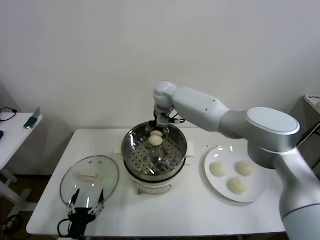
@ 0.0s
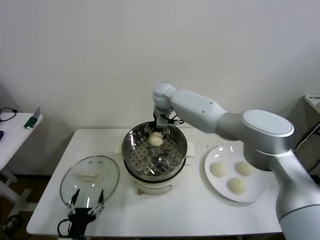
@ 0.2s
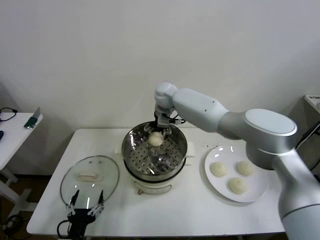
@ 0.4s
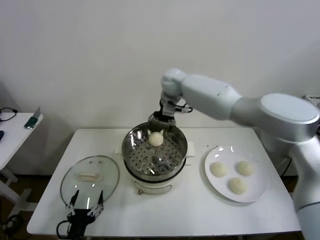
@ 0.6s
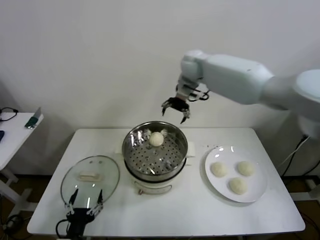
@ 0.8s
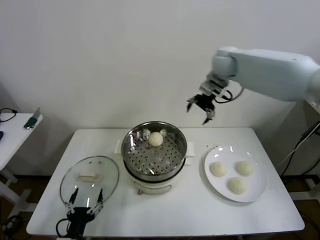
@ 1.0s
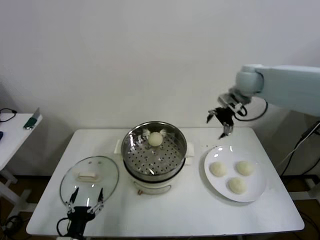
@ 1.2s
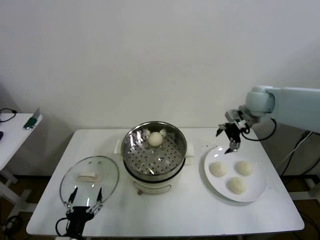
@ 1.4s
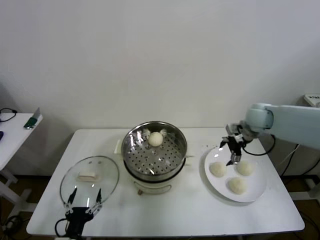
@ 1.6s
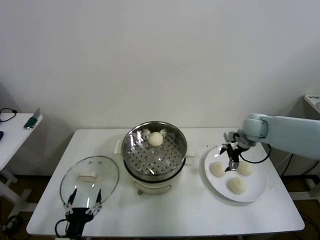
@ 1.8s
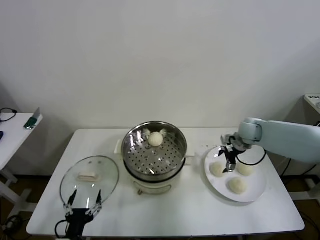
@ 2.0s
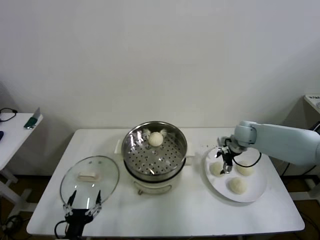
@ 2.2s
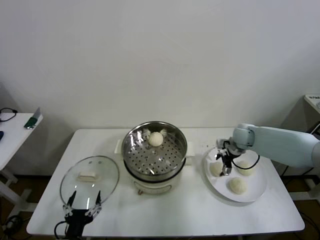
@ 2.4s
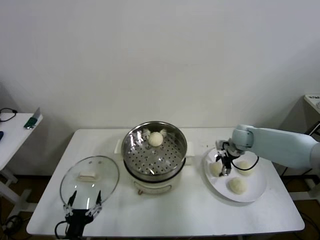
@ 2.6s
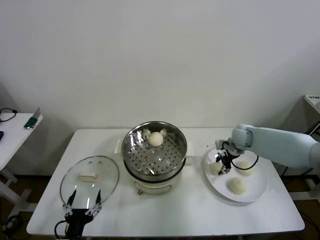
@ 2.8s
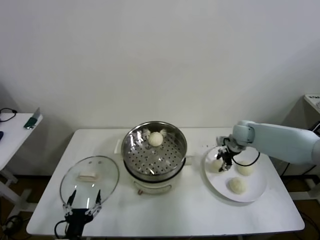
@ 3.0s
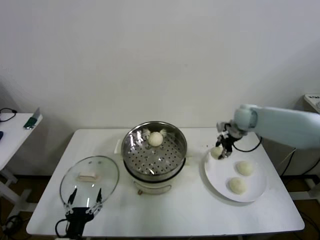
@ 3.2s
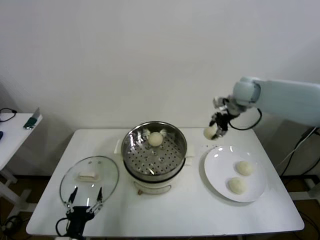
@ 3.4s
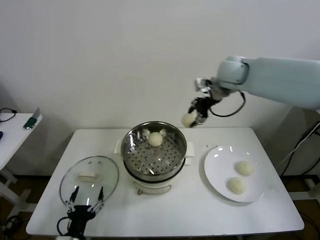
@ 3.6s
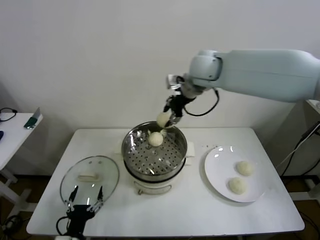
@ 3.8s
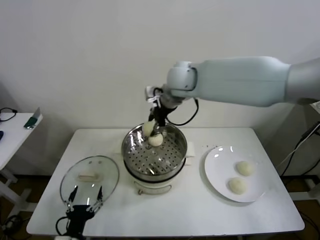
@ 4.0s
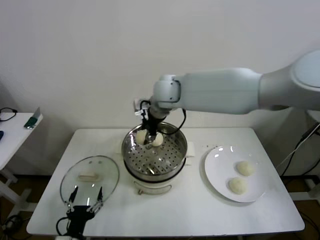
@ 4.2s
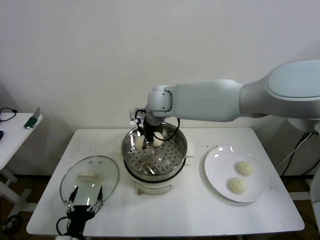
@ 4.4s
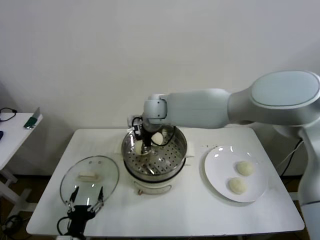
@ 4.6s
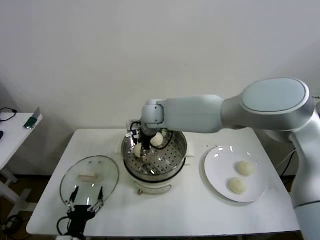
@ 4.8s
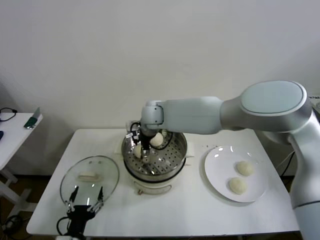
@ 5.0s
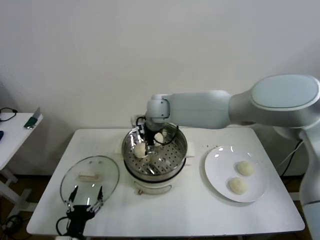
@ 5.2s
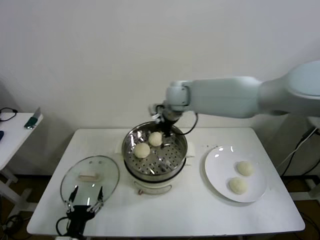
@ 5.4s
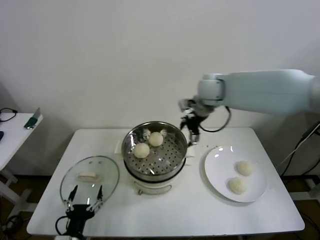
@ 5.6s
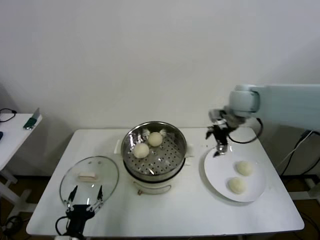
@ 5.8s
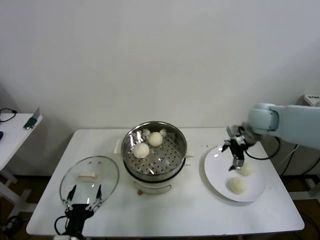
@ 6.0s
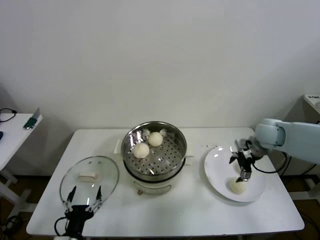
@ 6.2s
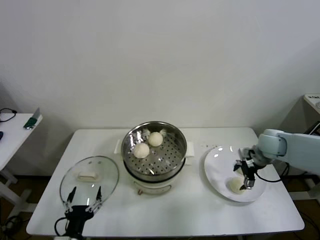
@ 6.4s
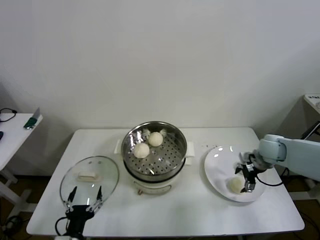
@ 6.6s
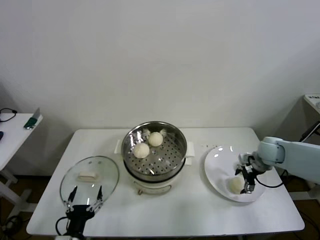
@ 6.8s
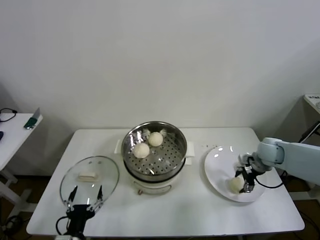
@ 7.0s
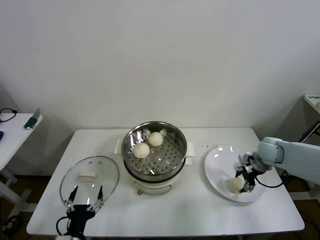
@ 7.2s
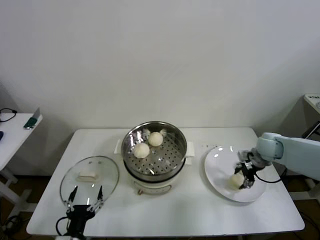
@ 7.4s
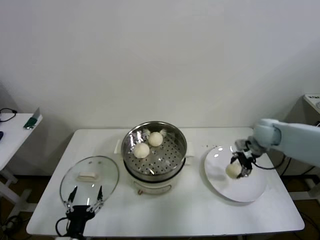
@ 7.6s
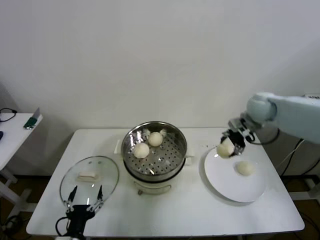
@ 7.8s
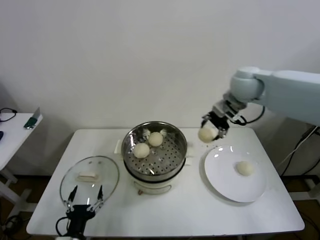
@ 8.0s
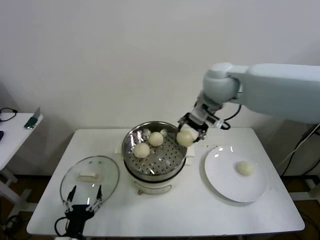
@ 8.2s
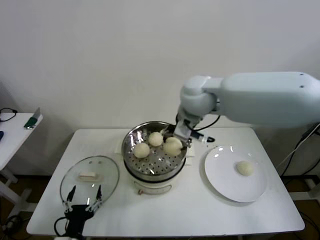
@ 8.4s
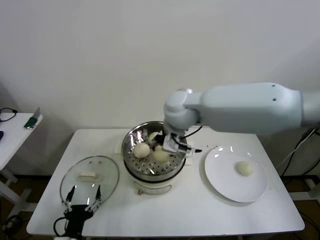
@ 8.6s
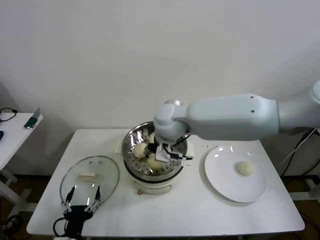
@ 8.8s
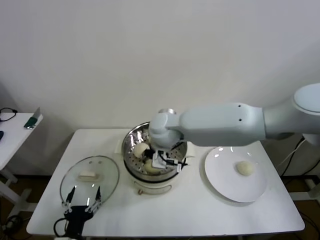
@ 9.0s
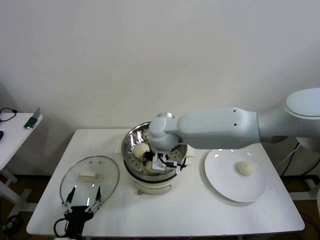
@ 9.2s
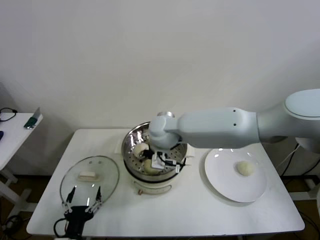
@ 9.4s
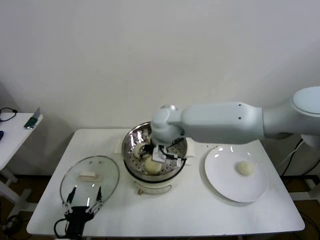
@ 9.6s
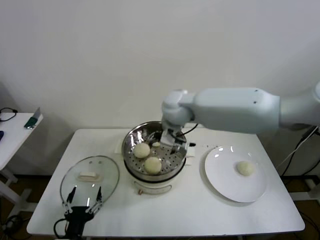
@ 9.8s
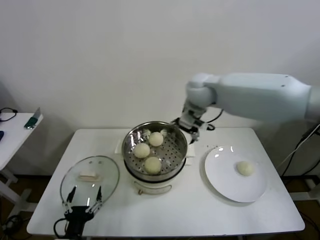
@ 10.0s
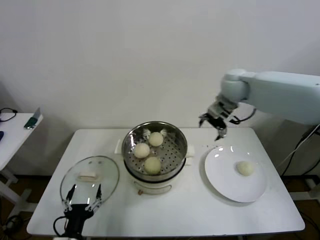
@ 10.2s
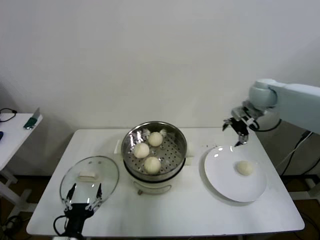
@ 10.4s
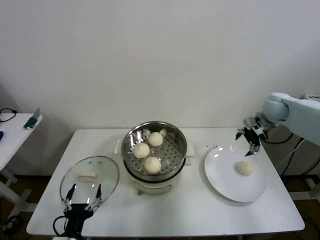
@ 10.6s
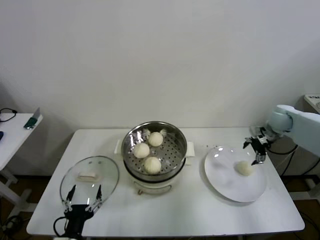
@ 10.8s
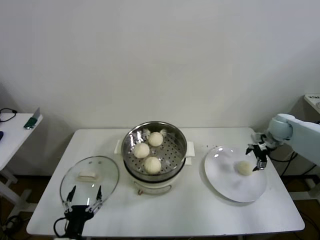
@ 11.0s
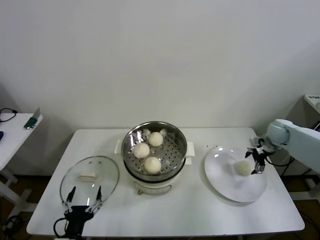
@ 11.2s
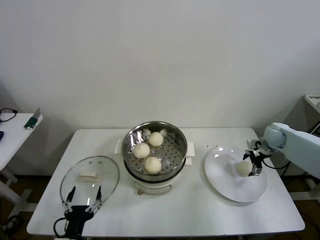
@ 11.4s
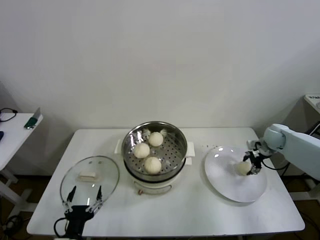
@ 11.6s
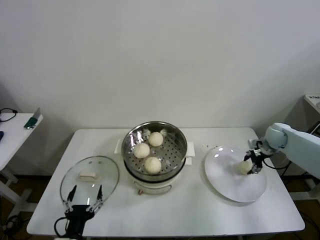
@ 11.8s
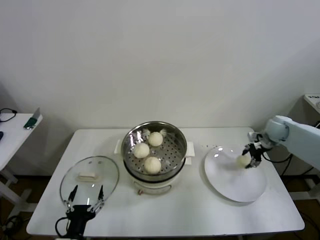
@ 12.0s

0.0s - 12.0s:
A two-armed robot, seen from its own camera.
Step, 0.4s - 2.6s: Grasp the baozi in the plate with right gripper.
Step, 2.8s - 4.8s: Place the baozi on the steamer with right gripper.
Step, 5.2s - 7.0s: Grasp the baozi in the plate with right gripper.
Step, 7.4s - 9.2s: Place the baozi on the steamer with right gripper.
Step, 9.4s - 11.6s: Grasp the baozi in the plate with right gripper.
0.0s - 1.6s: The right gripper is displaced to the right by some 35 cm, and opens.
1.6s - 3.0s: The right gripper goes about 5 cm downward, and closes.
3.0s - 4.4s: The right gripper moves to the left and upward, about 35 cm.
4.4s - 6.0s: The right gripper moves to the right, some 35 cm, and opens up.
6.0s - 7.6s: The right gripper travels downward and back again, approximately 10 cm each way, and closes up.
7.6s - 9.0s: The right gripper moves to the left, about 35 cm.
9.0s - 10.4s: The right gripper heads to the right, covering approximately 35 cm, and opens.
10.4s - 12.0s: The right gripper heads downward and to the right, covering about 15 cm, and closes.

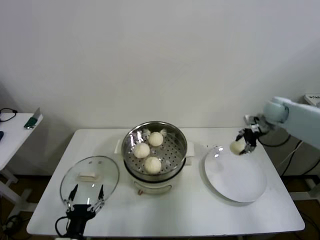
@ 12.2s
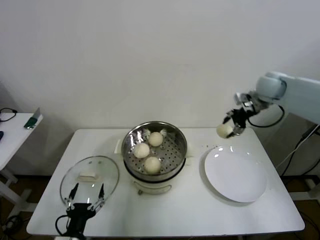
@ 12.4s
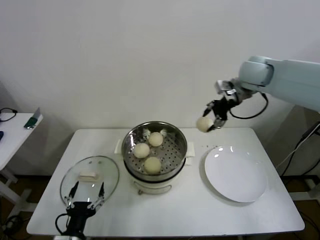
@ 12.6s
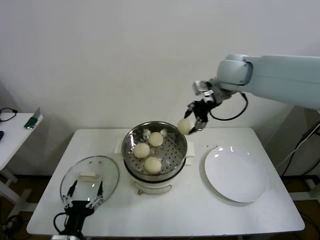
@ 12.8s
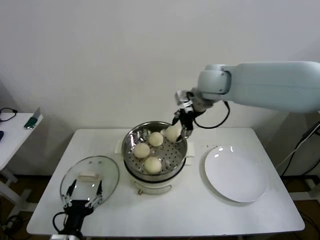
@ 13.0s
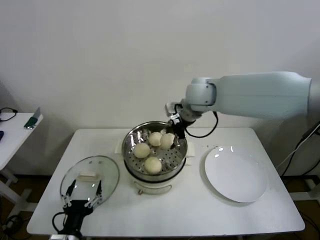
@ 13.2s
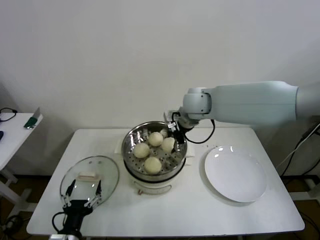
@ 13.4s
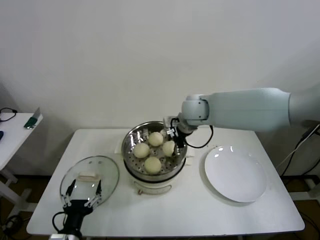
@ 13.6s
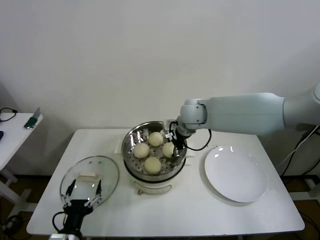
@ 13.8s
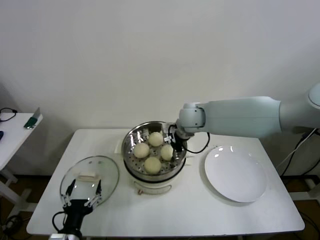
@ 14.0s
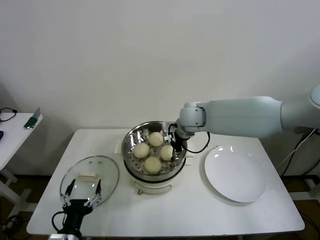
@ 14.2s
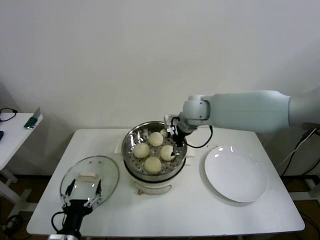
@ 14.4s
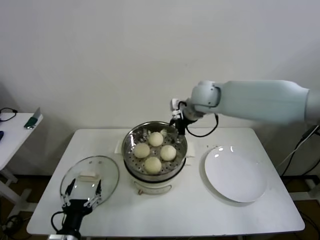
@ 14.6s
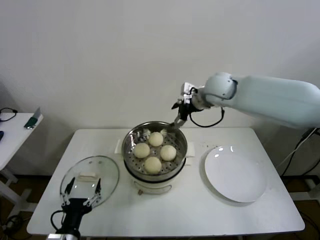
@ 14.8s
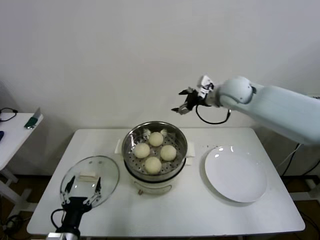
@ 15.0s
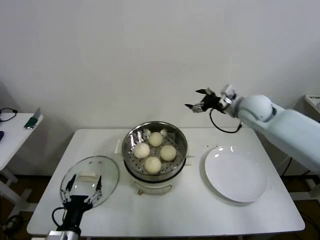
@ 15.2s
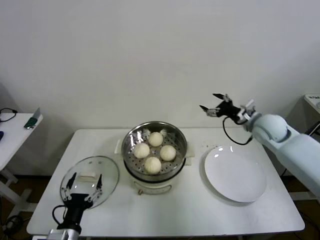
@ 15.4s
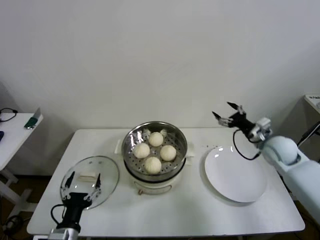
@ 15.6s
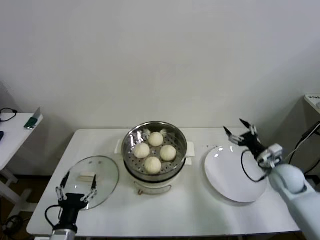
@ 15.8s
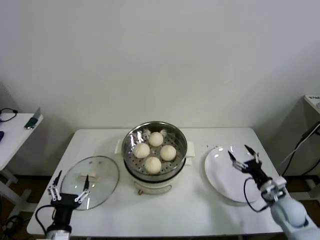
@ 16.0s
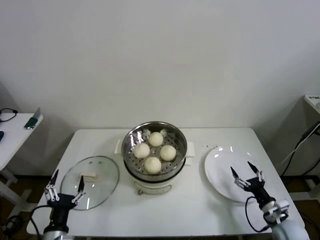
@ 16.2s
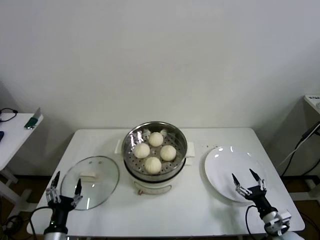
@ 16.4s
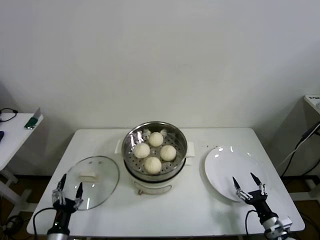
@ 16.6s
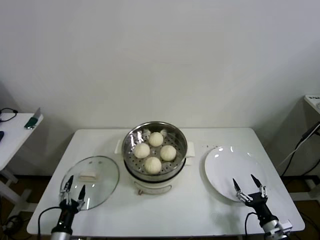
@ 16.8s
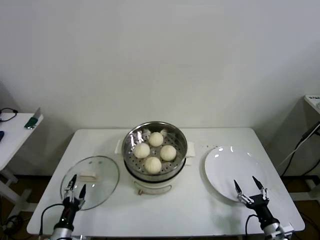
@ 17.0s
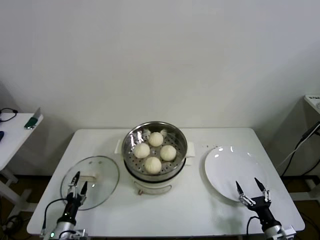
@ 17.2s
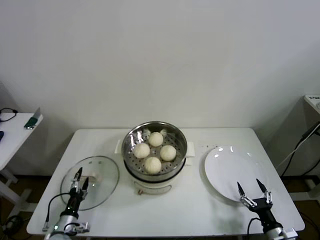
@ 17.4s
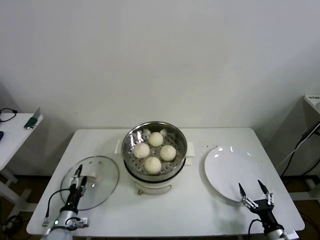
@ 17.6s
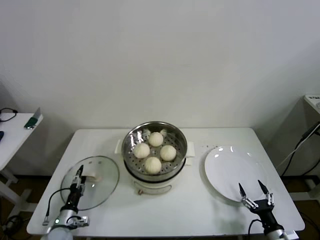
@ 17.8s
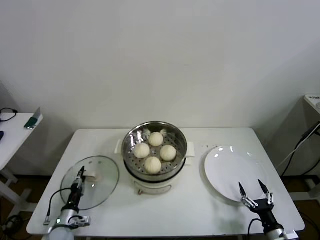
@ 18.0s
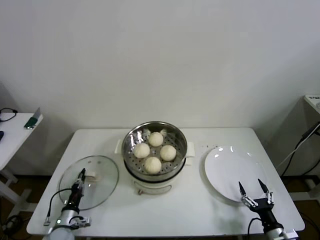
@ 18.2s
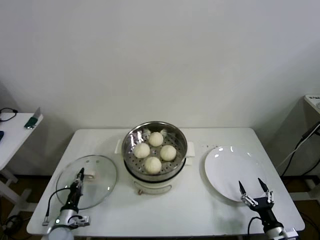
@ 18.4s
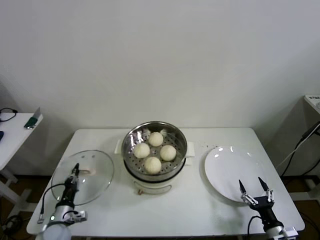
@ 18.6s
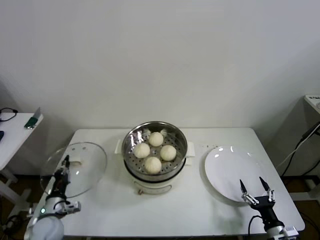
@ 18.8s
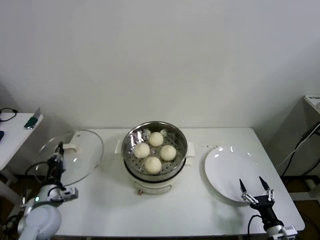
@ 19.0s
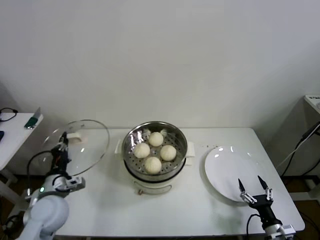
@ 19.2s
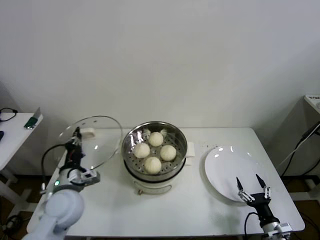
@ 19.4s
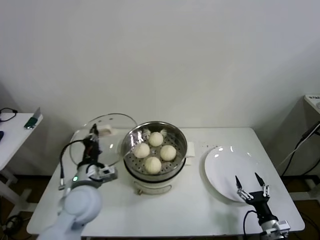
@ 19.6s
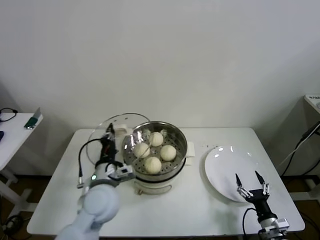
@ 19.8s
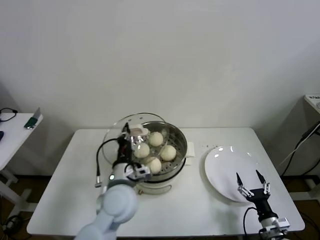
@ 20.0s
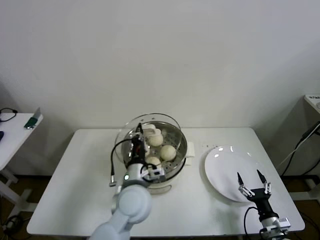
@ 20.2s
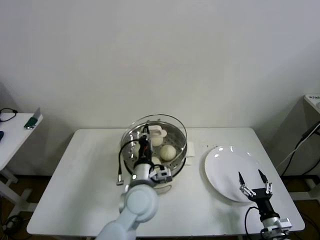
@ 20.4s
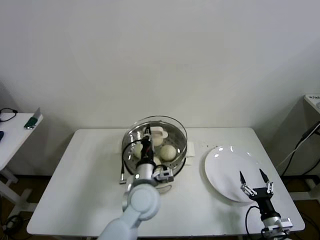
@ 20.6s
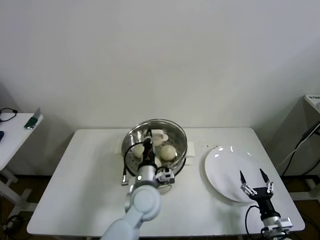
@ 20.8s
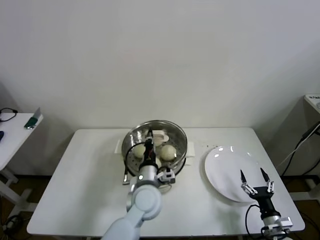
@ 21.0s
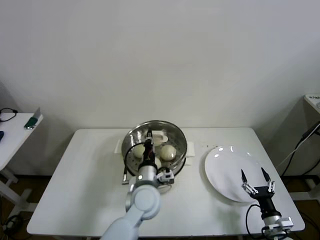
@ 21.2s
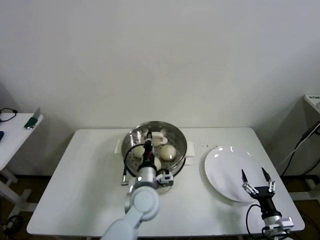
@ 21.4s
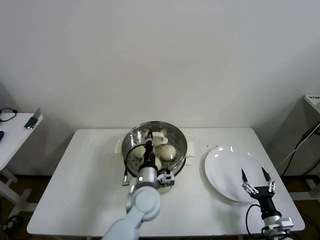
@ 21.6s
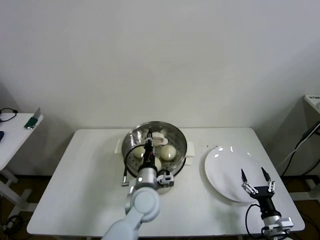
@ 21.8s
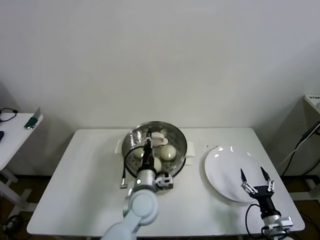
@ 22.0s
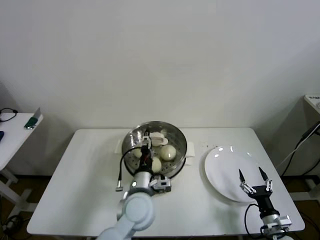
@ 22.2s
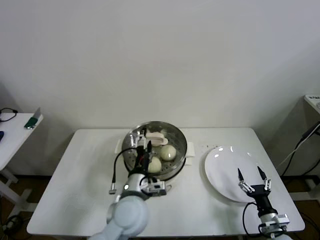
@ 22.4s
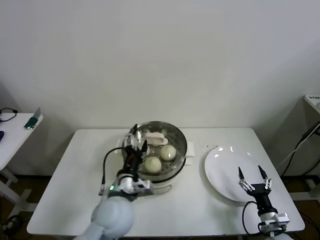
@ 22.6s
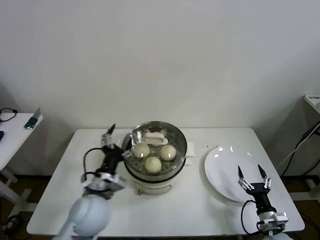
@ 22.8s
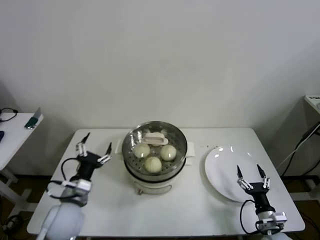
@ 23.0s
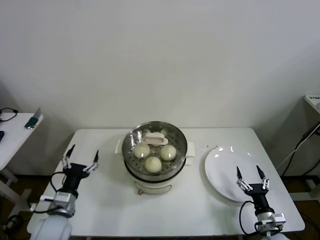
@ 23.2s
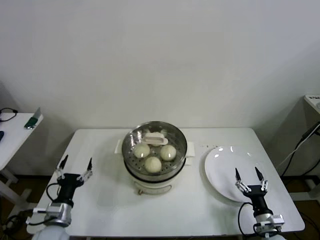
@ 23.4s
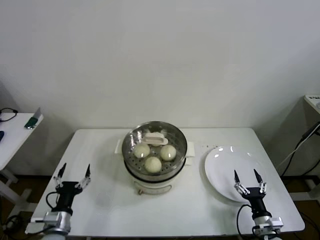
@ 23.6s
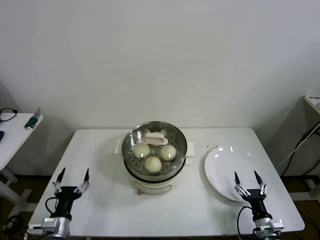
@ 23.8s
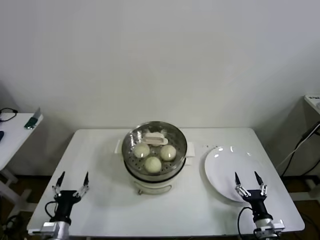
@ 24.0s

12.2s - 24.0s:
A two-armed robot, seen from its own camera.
Step, 12.2s - 14.0s: Place the baozi on the steamer with right gripper.
Step, 14.2s - 18.2s: Grasp the pot lid with left gripper.
Step, 18.4s - 21.8s: Place the pot lid on the steamer with left gripper.
12.2s - 13.6s: The right gripper shifts some 30 cm to the left.
13.6s - 15.2s: The right gripper moves to the right, approximately 20 cm, and opens up.
15.2s - 16.6s: The left gripper goes about 10 cm downward and to the left. The right gripper goes approximately 50 cm downward and backward.
16.6s - 18.2s: The left gripper heads forward and downward, covering about 15 cm, and closes its fingers.
18.2s - 19.6s: The left gripper travels upward and to the right by some 30 cm.
19.6s - 21.0s: The left gripper shifts about 20 cm to the right.
21.0s - 22.6s: The left gripper goes some 5 cm to the left, and opens its fingers.
22.6s - 24.0s: The left gripper moves to the left and downward, approximately 25 cm.
